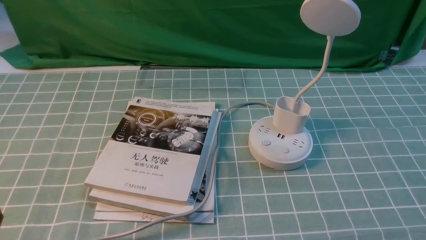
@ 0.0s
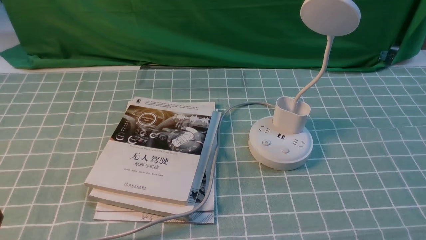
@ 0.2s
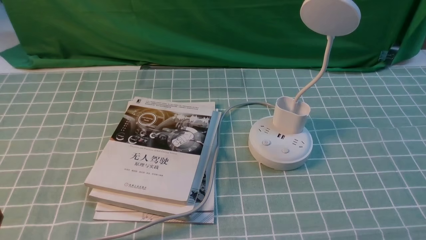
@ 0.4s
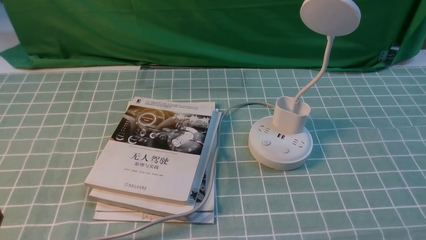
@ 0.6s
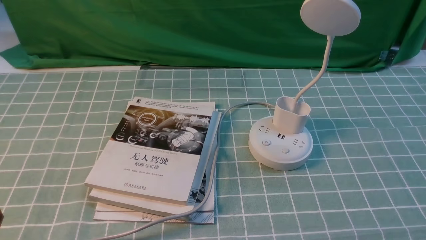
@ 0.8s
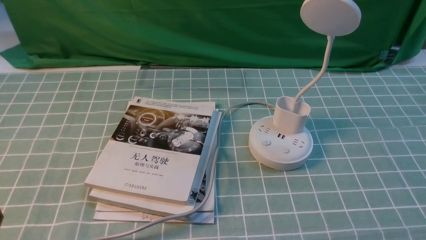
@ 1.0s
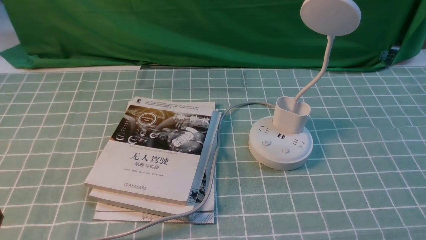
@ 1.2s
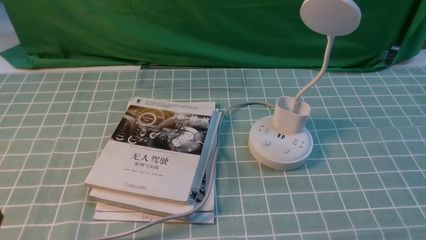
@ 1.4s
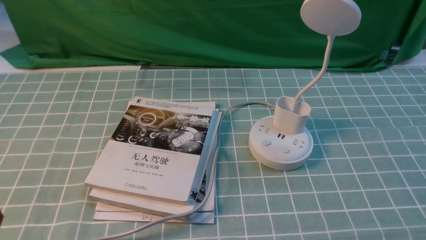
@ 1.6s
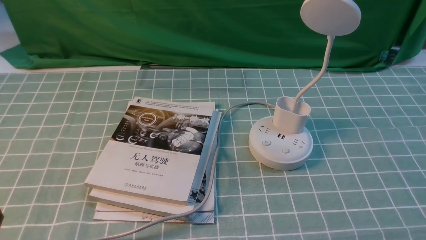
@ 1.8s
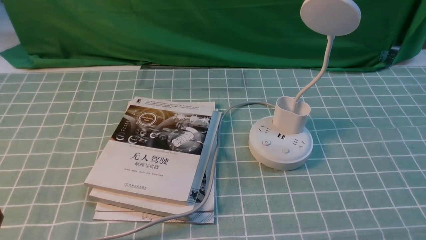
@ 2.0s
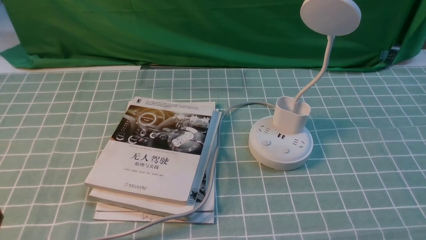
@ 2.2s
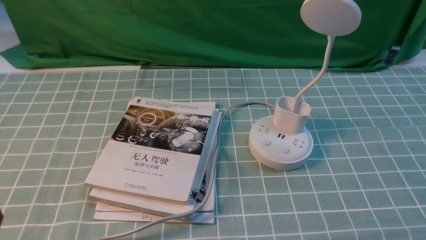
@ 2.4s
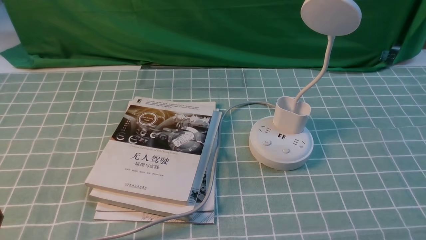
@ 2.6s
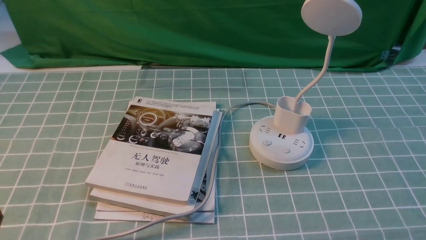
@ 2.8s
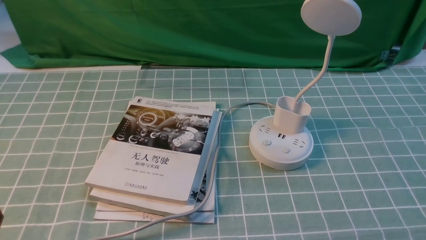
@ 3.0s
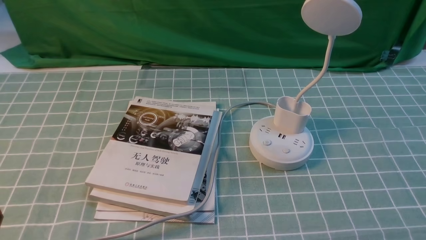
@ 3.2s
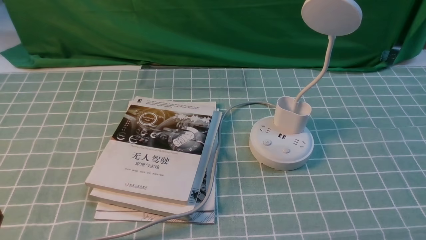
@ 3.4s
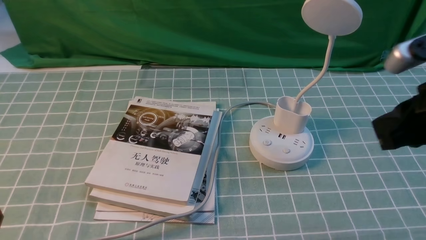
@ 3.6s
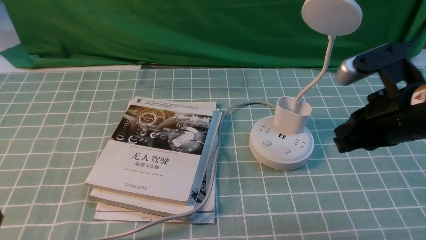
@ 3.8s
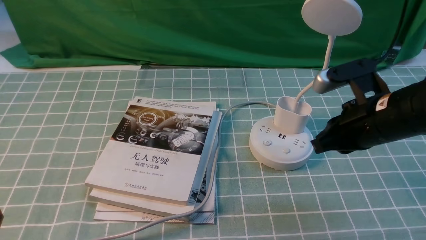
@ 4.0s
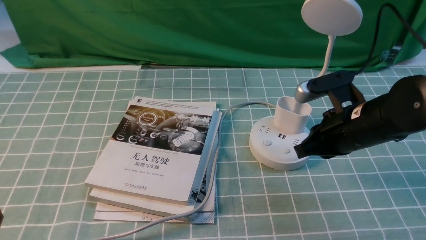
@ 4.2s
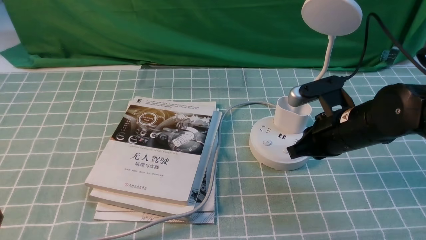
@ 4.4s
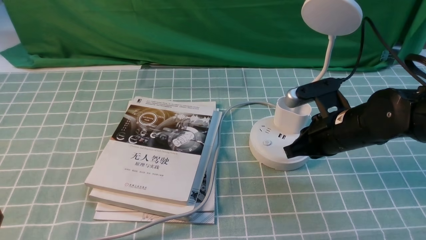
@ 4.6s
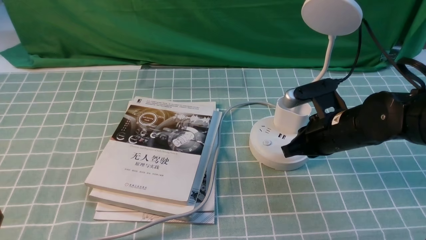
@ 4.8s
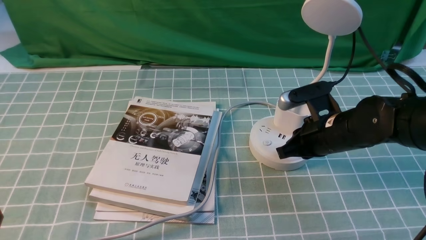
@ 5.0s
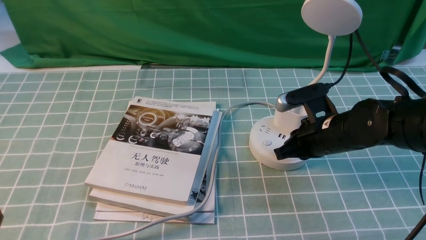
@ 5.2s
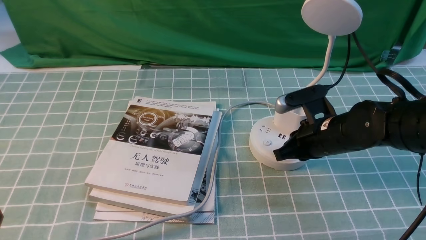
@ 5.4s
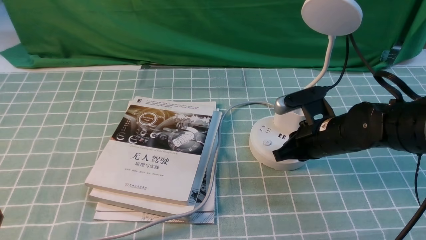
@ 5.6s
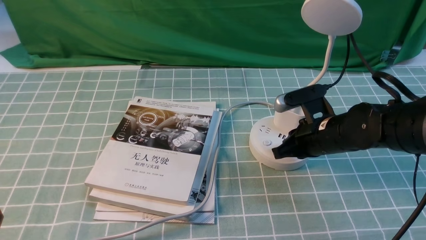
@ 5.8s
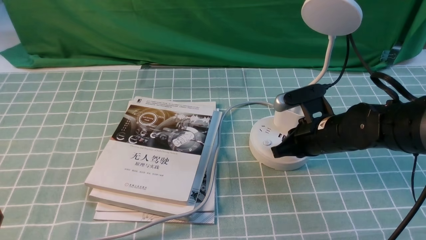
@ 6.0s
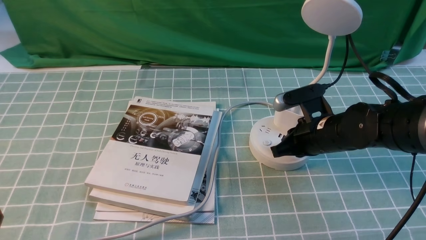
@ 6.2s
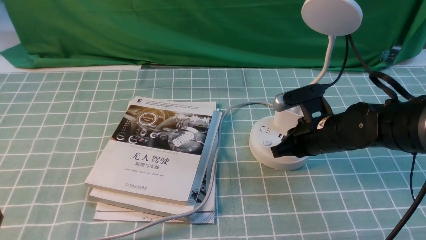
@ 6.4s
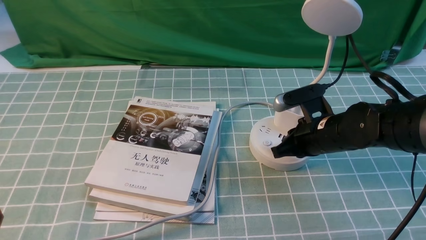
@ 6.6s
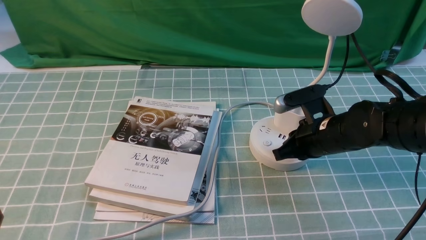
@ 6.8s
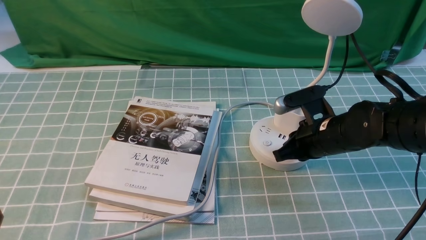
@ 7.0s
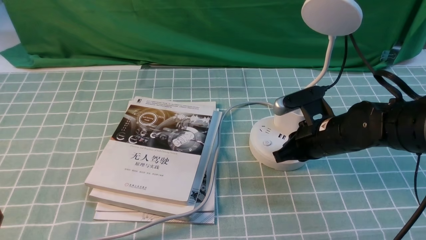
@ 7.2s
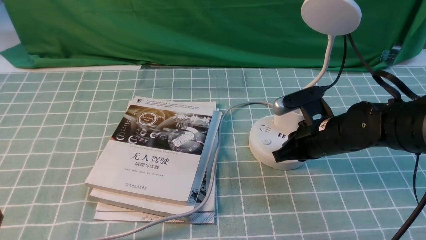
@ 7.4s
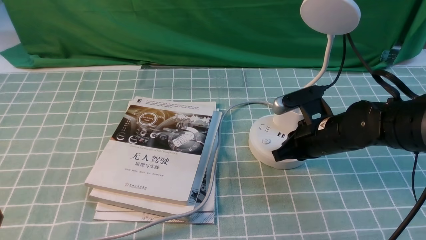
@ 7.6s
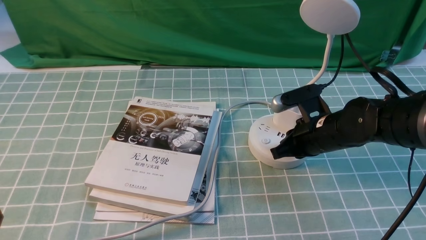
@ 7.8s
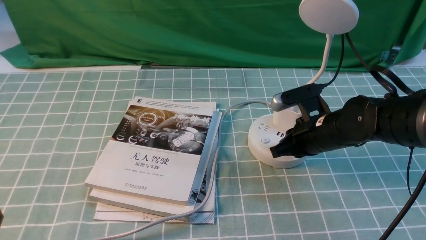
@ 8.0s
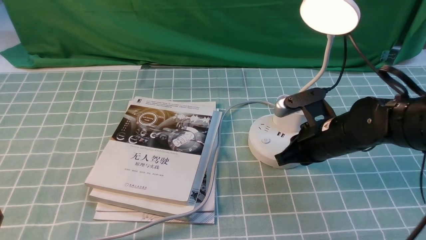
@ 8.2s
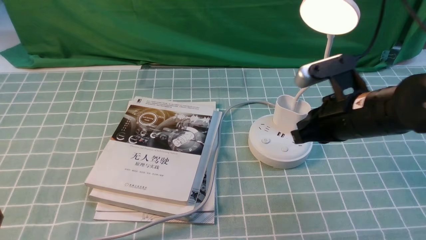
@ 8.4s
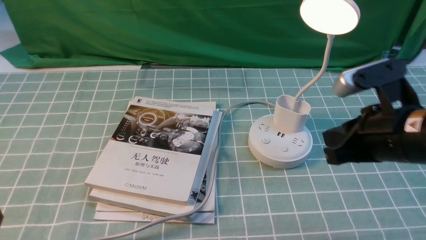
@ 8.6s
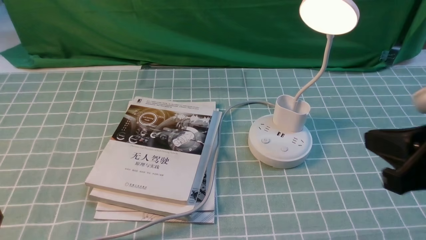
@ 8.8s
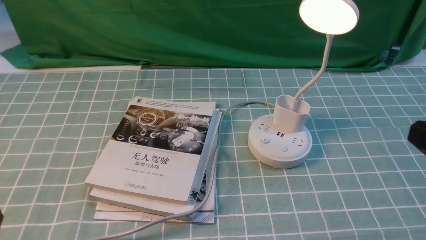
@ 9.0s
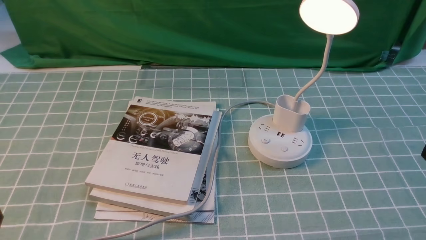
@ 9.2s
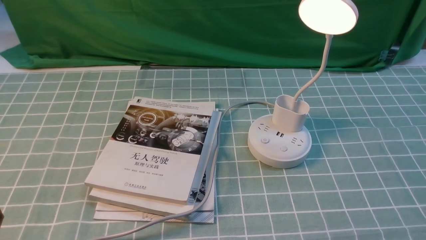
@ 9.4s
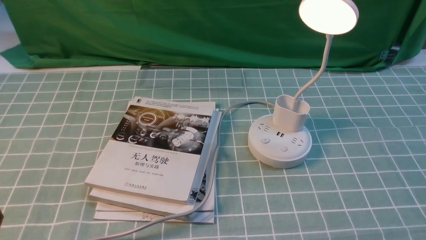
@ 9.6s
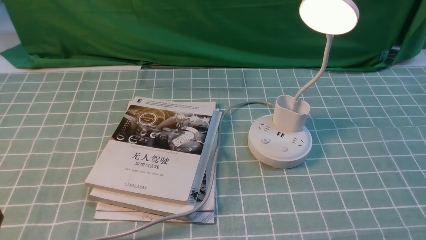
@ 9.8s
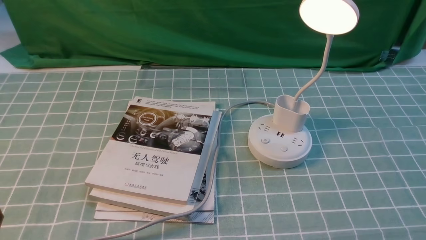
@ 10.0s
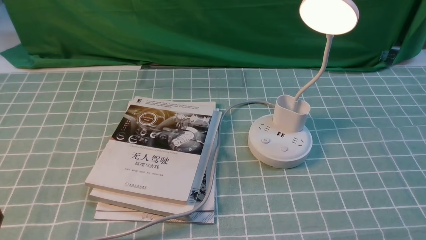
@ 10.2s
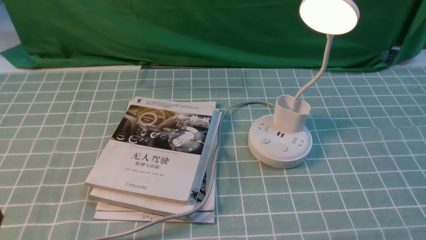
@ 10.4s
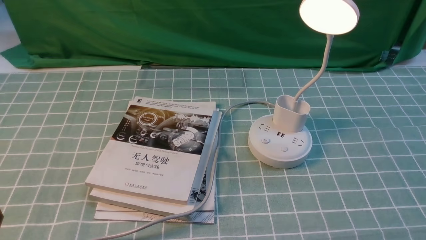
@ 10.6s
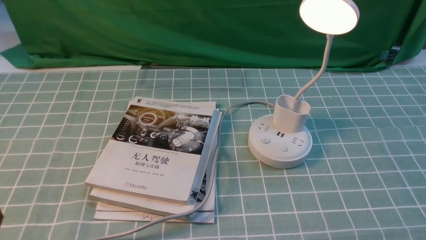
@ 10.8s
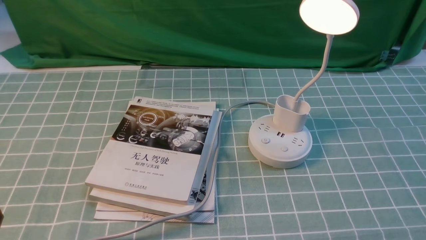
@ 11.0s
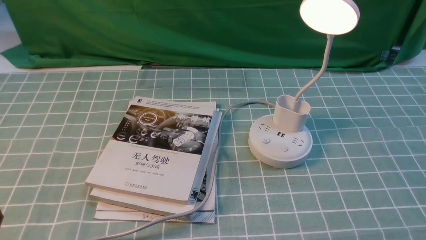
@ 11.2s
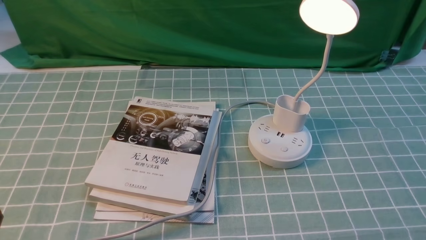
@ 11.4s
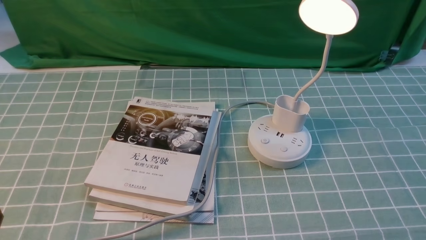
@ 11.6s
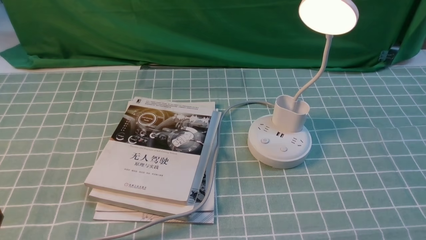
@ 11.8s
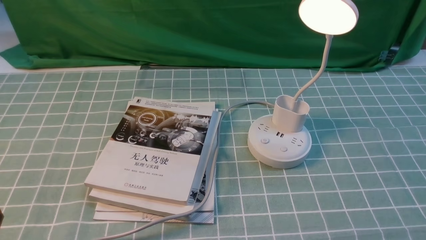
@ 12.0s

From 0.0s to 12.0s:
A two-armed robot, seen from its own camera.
Step, from 0.0s to 8.2s: use the right arm to press the button switch on the lamp holder.
From 0.0s to 1.6s: Both grippers stay about where they are.
From 3.0s to 4.4s: The right gripper shifts roughly 30 cm forward, to the left and downward.
From 4.4s to 6.0s: The right gripper shifts by approximately 5 cm.
From 6.0s to 7.6s: Neither gripper changes place.
From 7.6s to 9.0s: The right gripper travels backward, upward and to the right by some 30 cm.

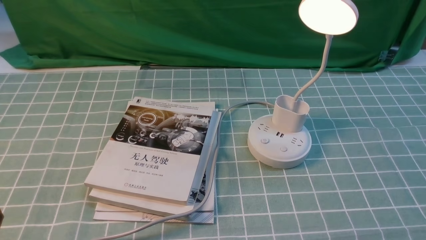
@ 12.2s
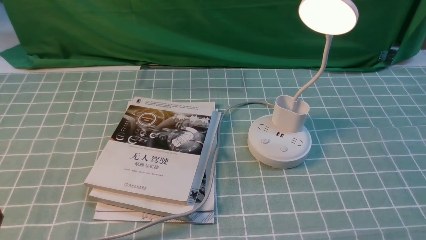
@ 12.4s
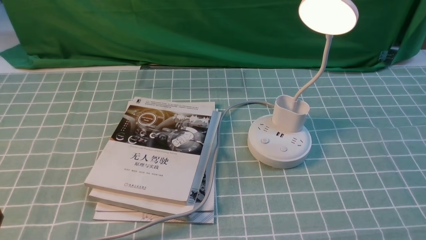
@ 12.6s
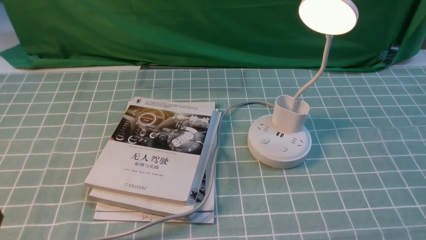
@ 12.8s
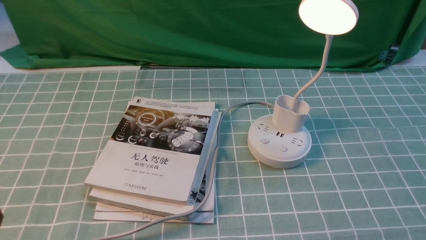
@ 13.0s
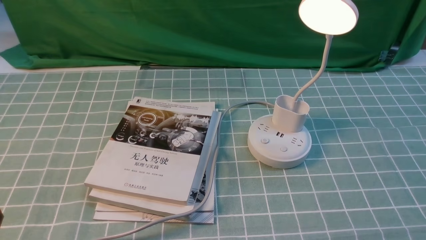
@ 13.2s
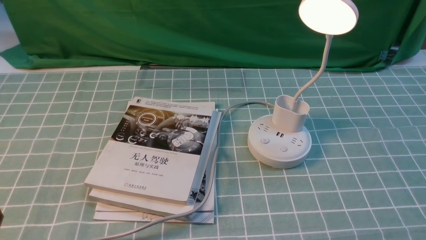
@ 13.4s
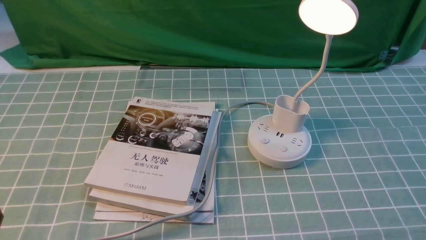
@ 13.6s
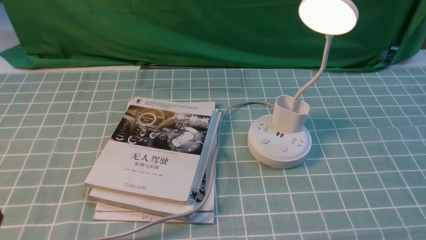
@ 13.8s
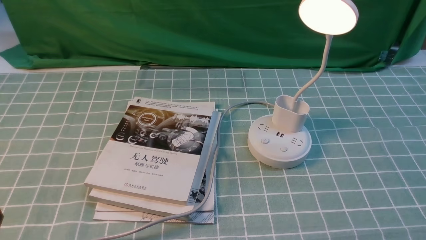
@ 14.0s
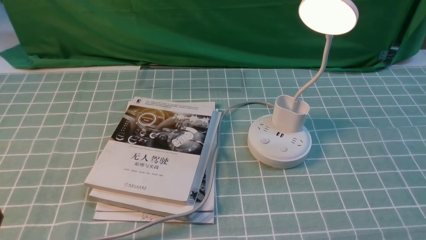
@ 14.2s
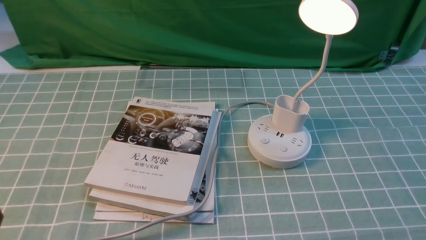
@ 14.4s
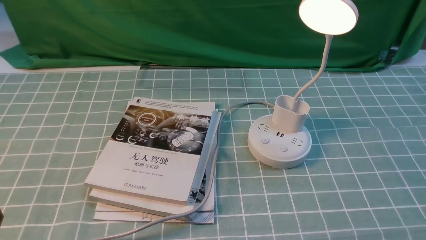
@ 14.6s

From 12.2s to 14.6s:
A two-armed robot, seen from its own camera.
From 12.2s to 14.6s: Both grippers stay about where they are.

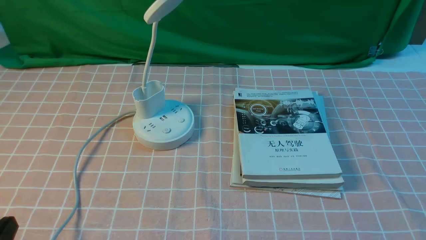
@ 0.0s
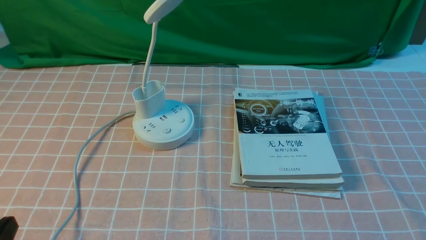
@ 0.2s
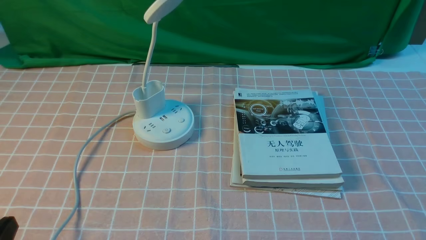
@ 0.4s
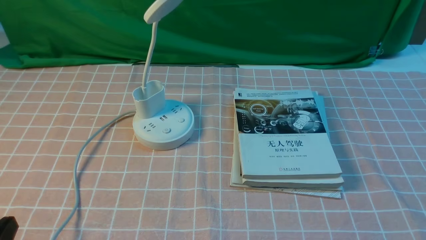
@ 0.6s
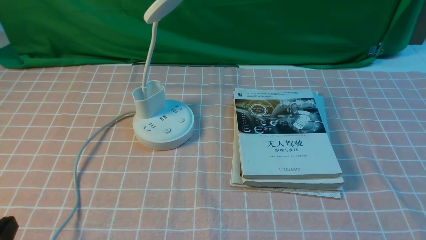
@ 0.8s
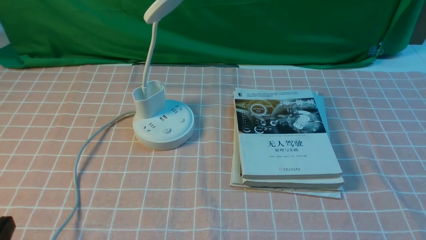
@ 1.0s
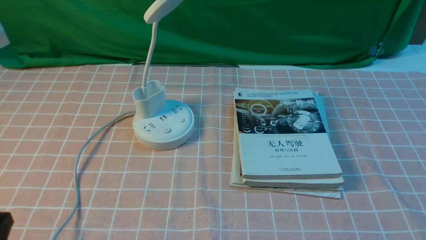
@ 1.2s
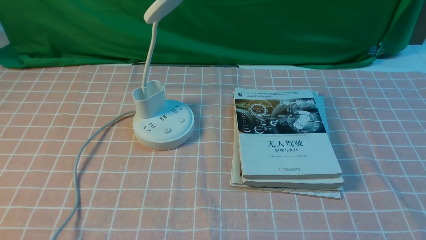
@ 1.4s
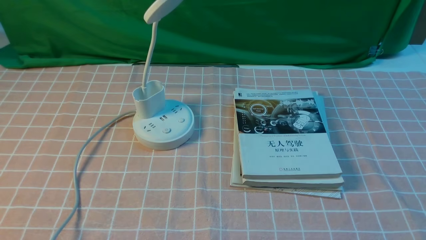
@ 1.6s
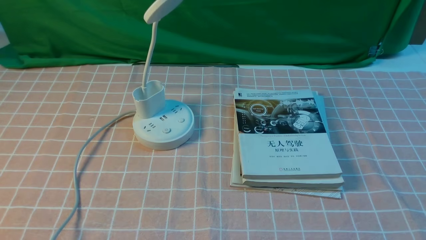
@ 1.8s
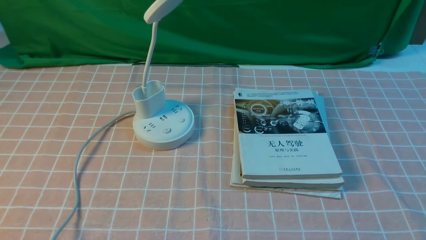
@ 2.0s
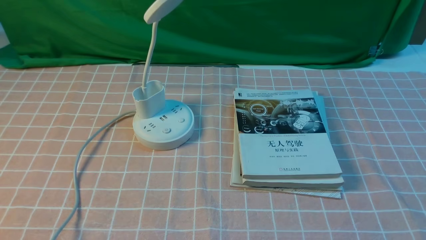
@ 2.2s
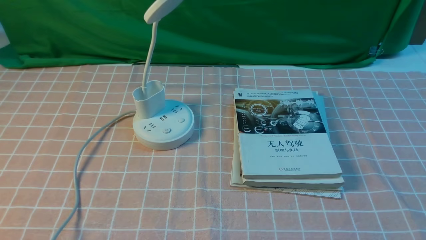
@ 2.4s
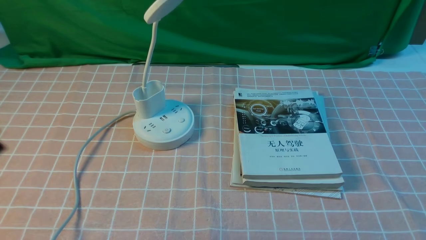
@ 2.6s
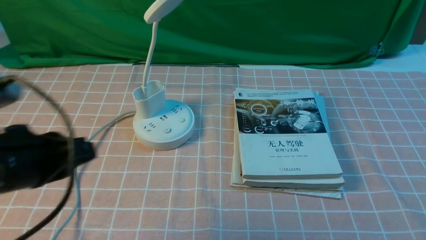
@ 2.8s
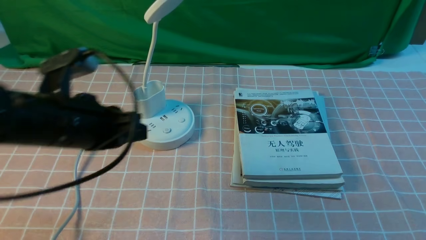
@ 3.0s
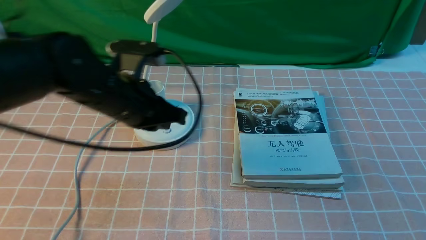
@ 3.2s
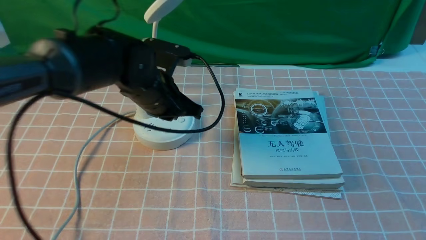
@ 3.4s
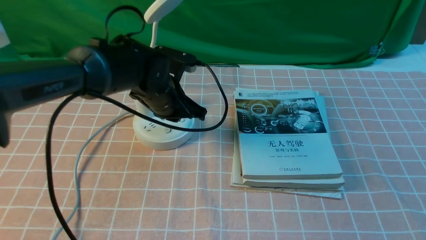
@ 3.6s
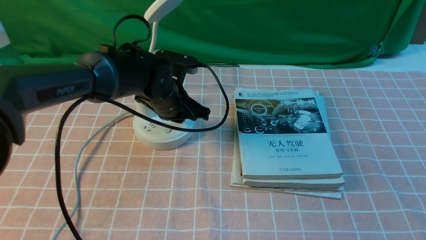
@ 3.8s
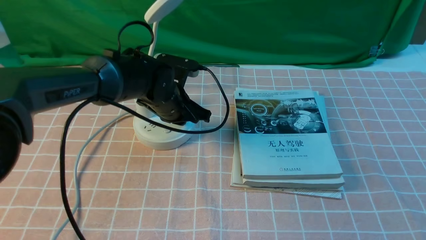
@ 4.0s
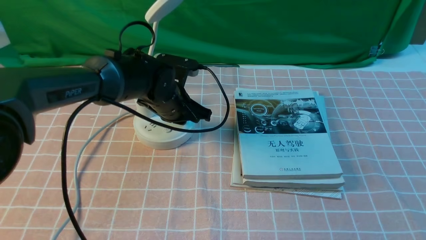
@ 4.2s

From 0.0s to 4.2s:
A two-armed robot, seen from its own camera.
From 1.4s to 2.8s: The left gripper goes approximately 15 cm forward and upward, and closes.
From 2.8s to 4.2s: The left gripper shifts approximately 30 cm forward, to the right and downward, and closes, then reopens.
